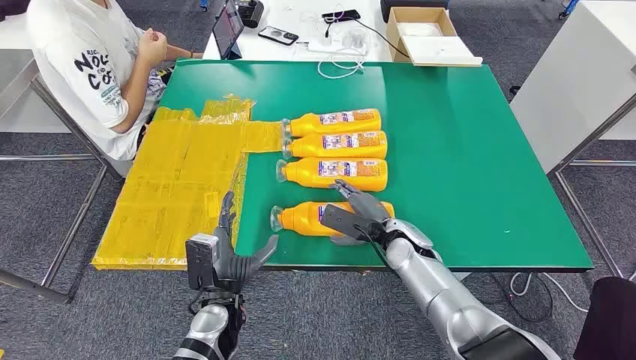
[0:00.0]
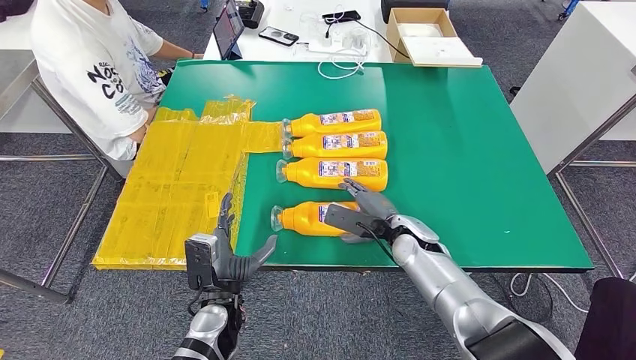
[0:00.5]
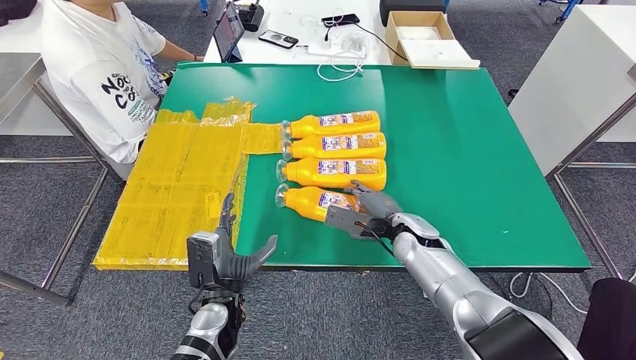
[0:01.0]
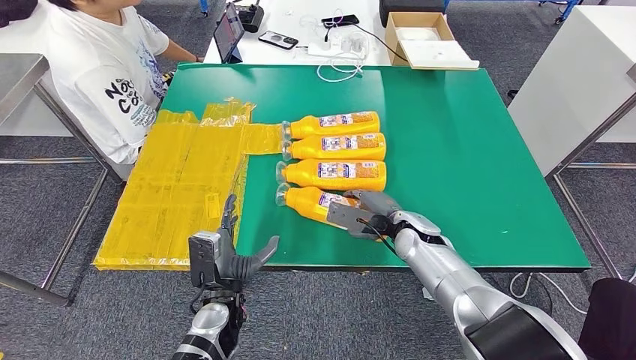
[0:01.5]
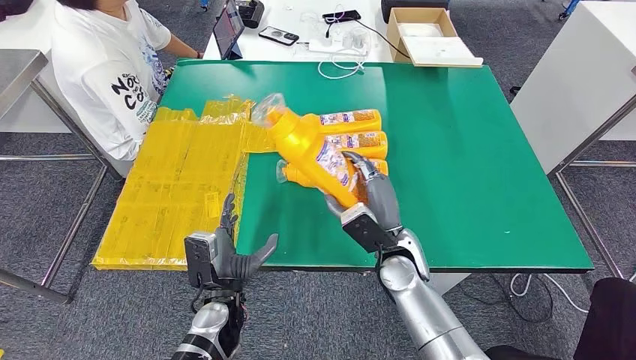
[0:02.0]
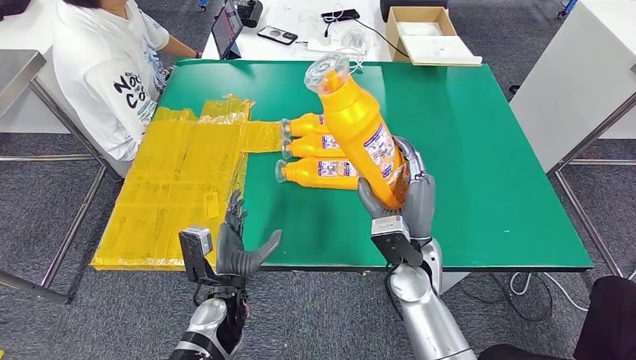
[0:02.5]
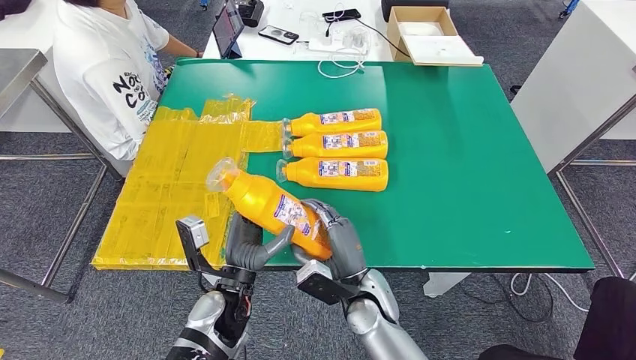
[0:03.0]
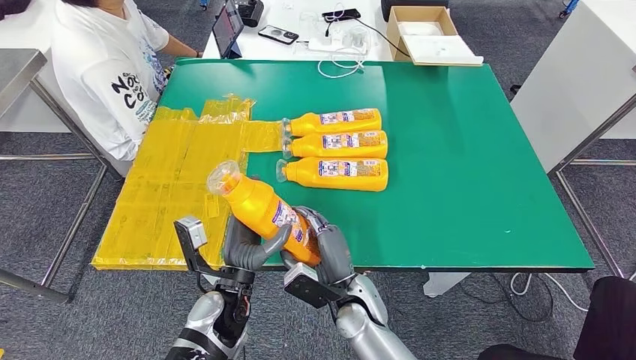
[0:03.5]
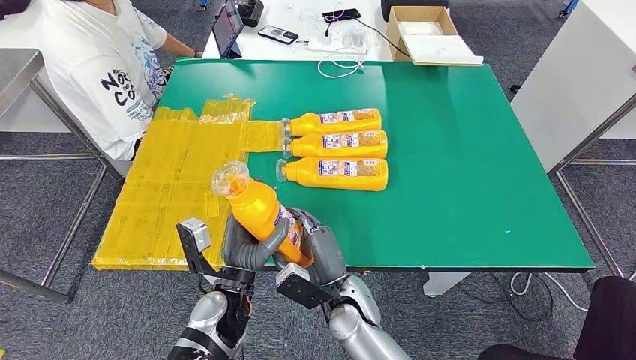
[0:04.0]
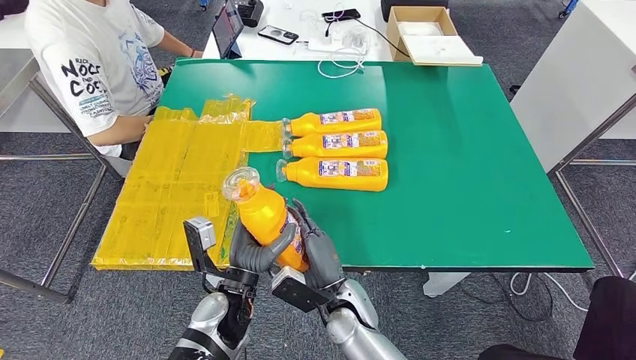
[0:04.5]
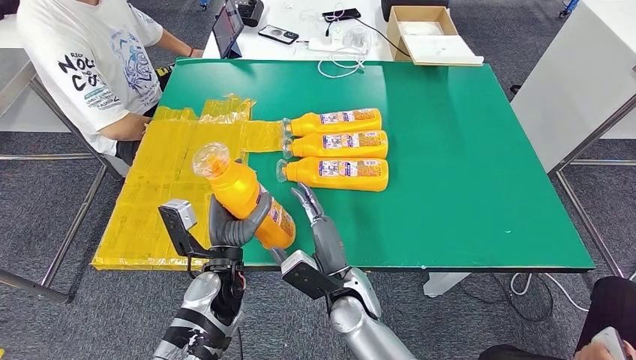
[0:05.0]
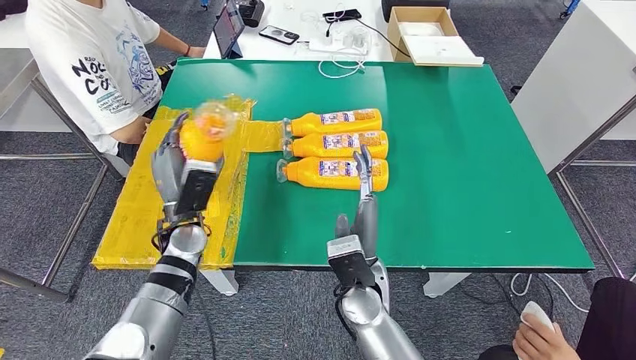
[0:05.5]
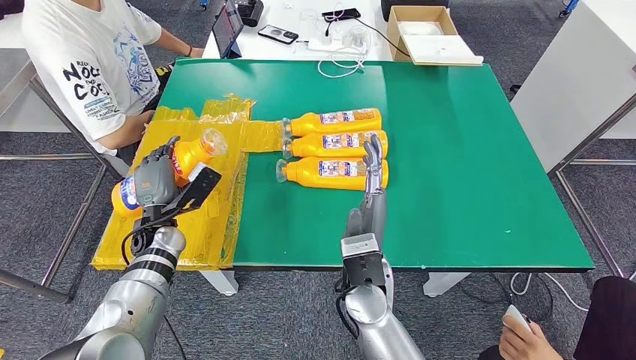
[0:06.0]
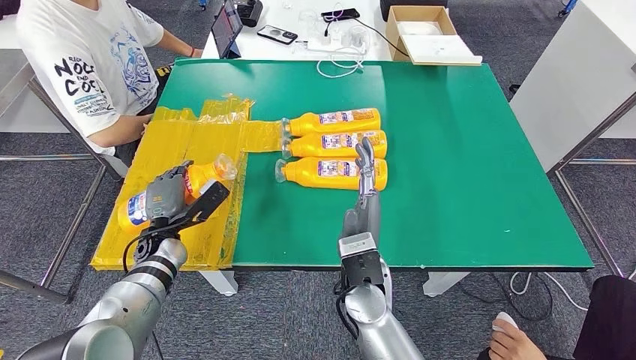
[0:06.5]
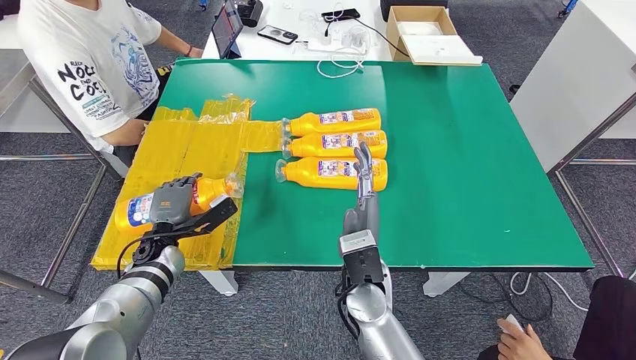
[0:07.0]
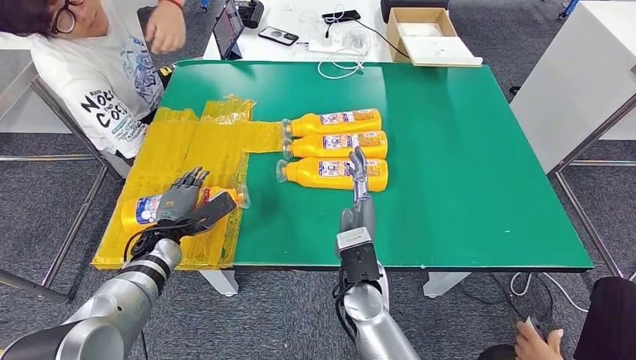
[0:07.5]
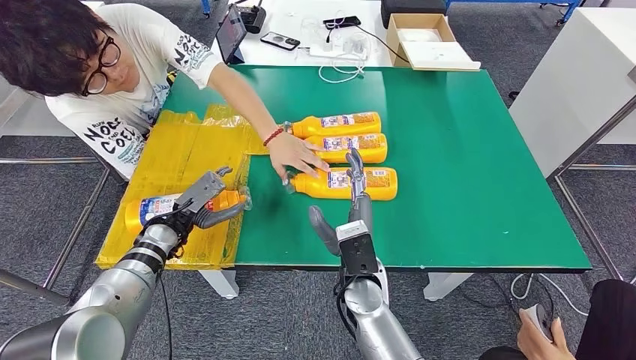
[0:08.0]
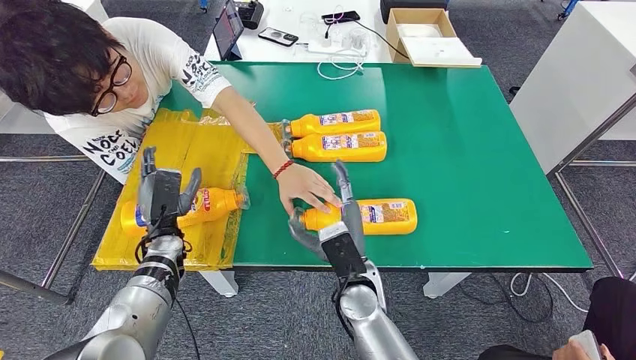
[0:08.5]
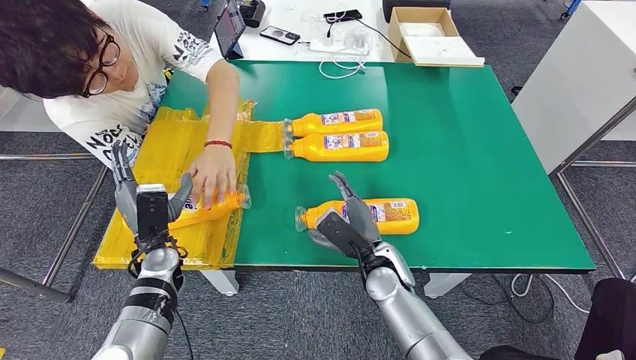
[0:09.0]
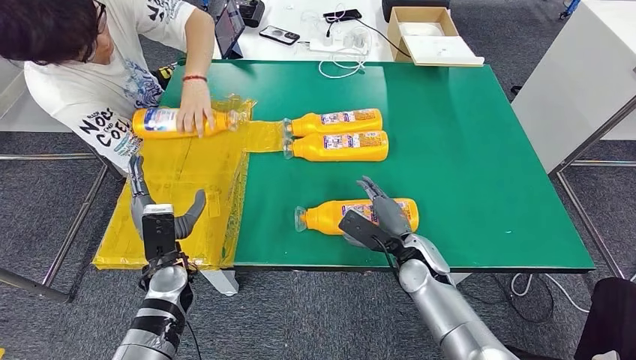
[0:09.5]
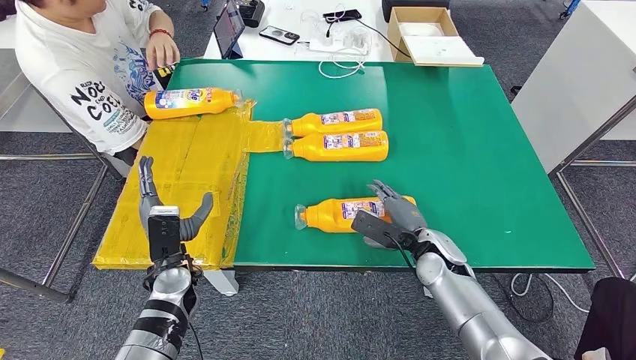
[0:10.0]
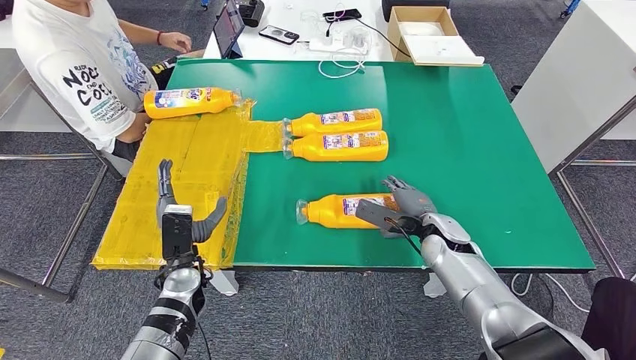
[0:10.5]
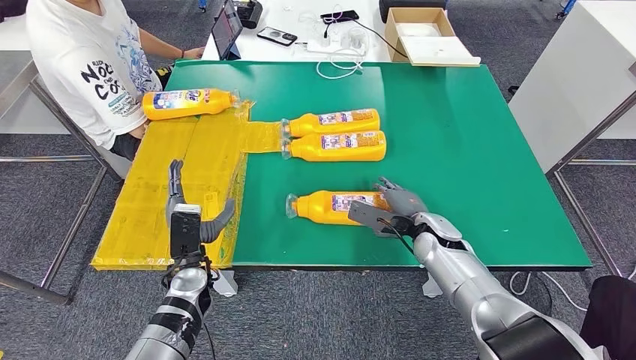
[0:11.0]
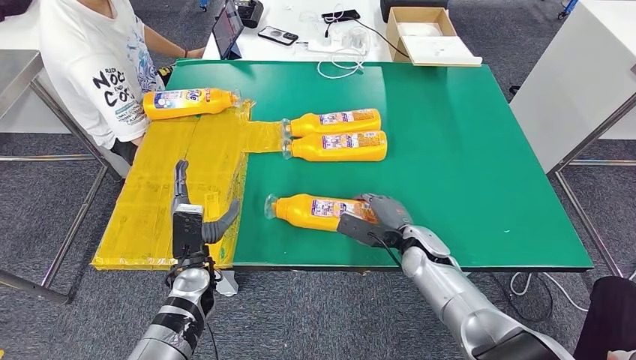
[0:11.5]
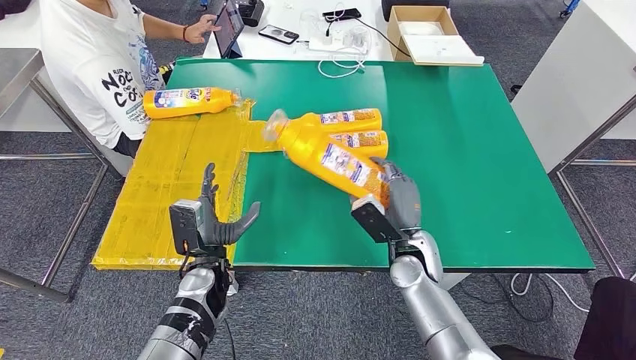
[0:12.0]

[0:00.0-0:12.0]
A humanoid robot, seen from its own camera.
Step, 0:00.0 to 0:02.5: Take the fast-moving consumer goods bottle from the table.
Step, 0:03.0 to 0:08.0: Flip the fast-moving consumer goods bottle to the front side.
0:02.0 to 0:04.0: The right hand travels to the left, backward and downward by roughly 15 cm.

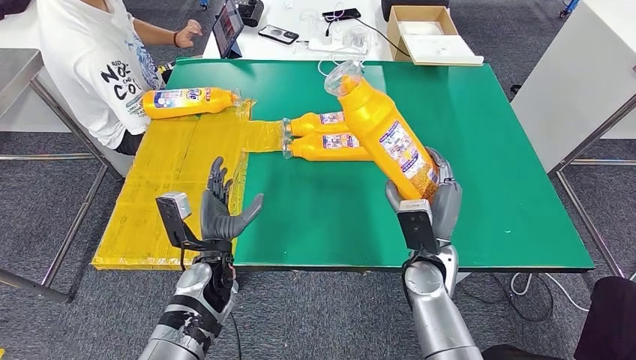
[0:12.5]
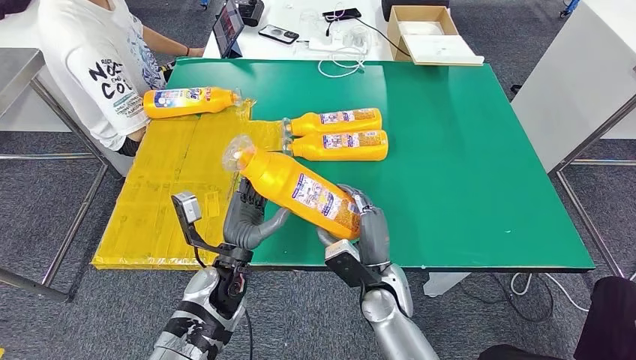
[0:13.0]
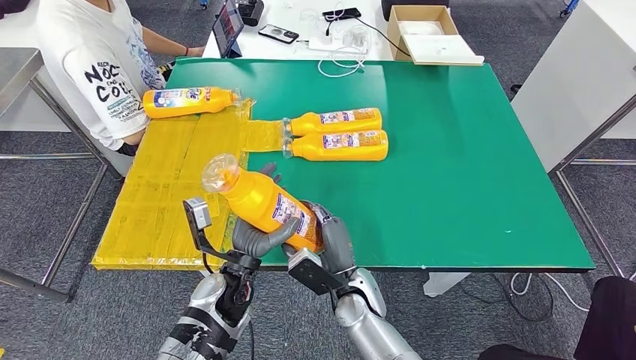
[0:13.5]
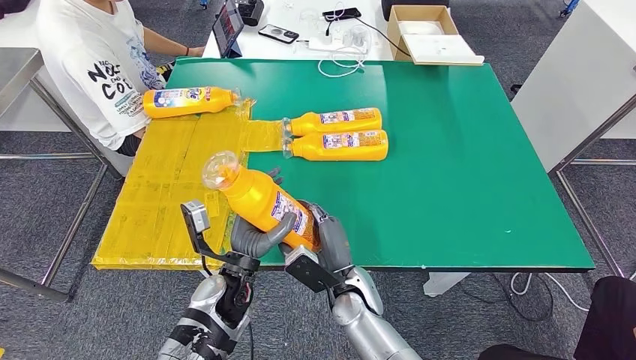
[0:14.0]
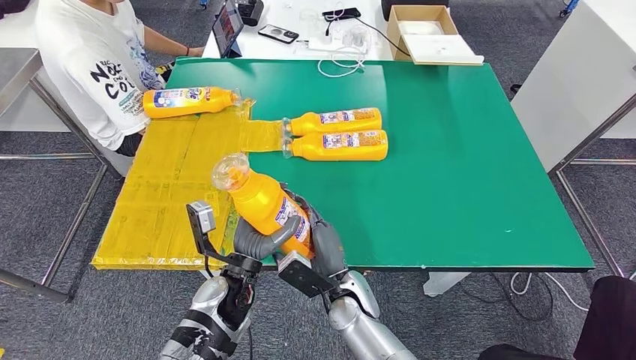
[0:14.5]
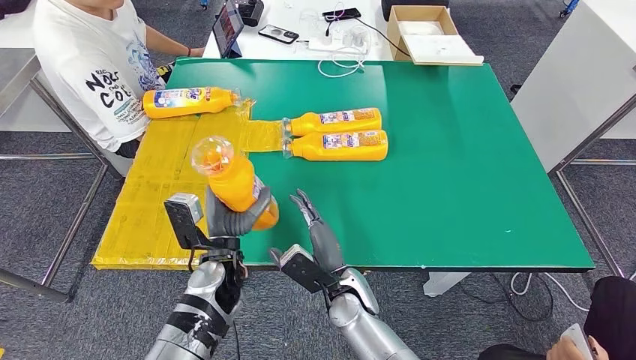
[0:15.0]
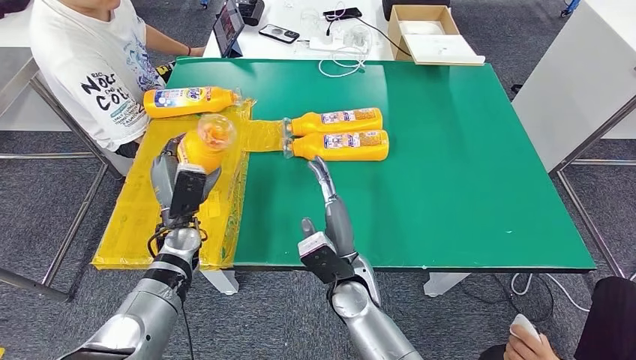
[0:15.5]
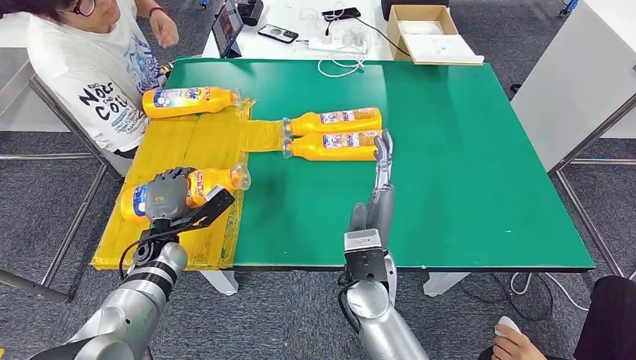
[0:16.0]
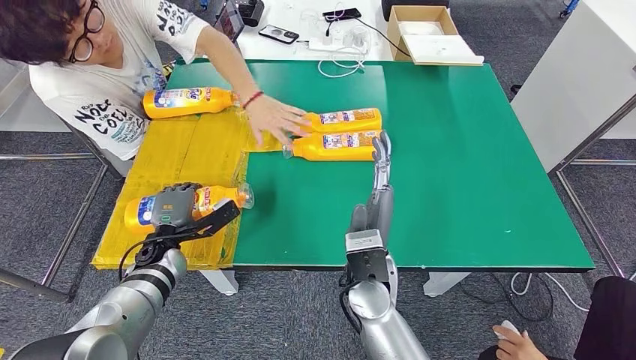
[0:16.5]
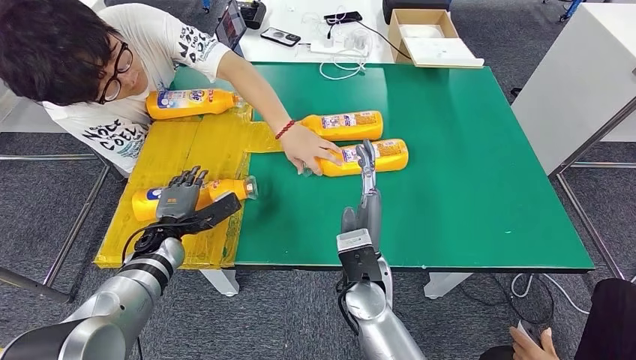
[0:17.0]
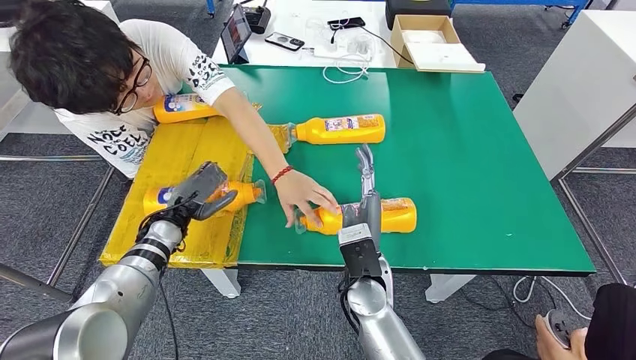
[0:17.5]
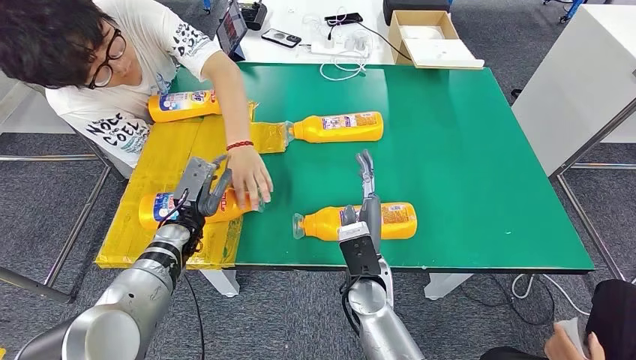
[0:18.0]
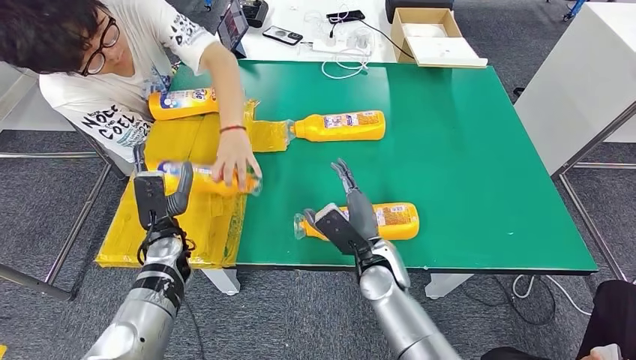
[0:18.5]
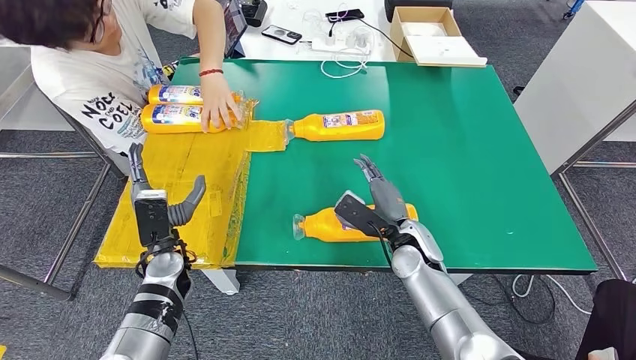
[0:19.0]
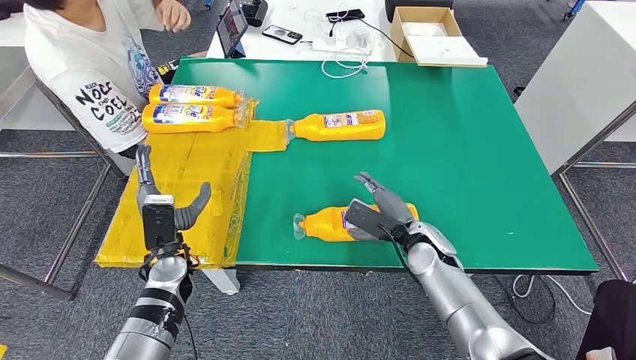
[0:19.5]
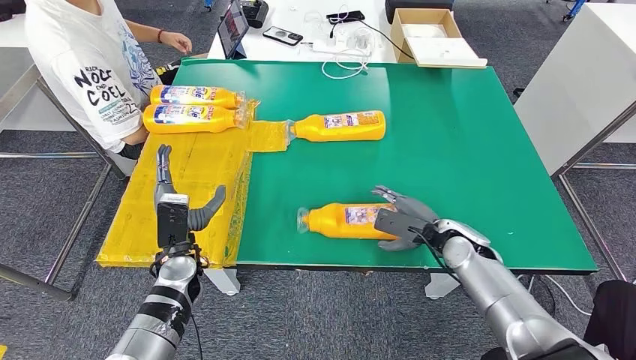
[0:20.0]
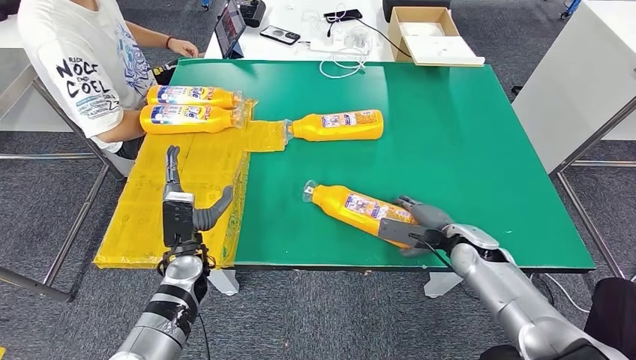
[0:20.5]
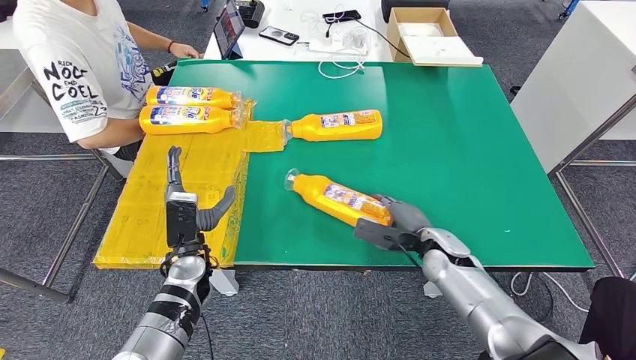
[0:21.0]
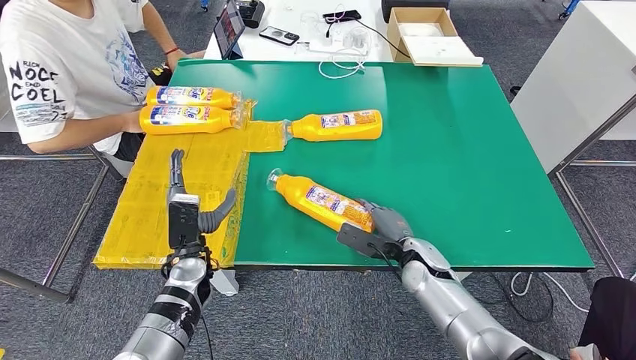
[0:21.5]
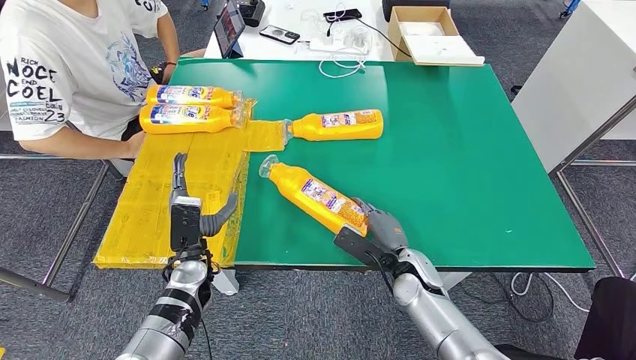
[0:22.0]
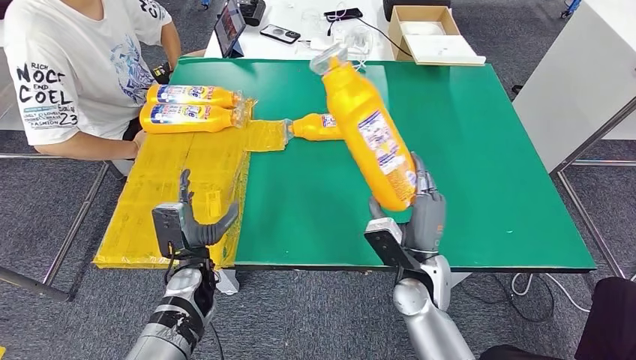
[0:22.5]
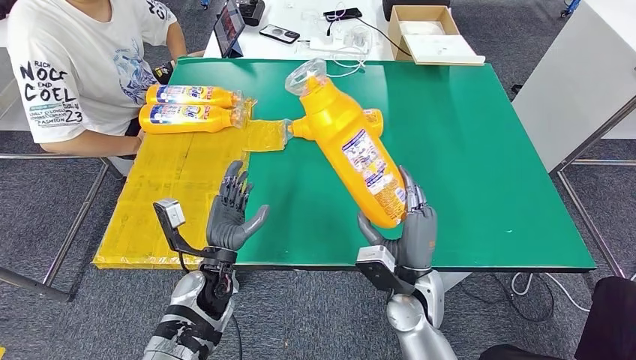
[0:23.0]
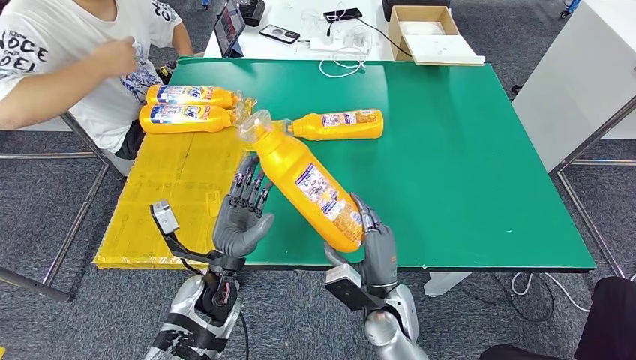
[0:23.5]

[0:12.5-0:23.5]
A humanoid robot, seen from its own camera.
Step, 0:13.0 to 0:17.5: Flip the fast-moving consumer goods bottle to the front side.
Step, 0:20.0 to 0:23.0: Pick up the fast-moving consumer goods bottle from the table.
0:12.5 to 0:14.5: The right hand shifts some 15 cm to the left and downward, while the left hand changes place by about 5 cm.
0:14.5 to 0:16.0: The right hand goes about 10 cm upward; the left hand goes approximately 20 cm to the left and forward.
